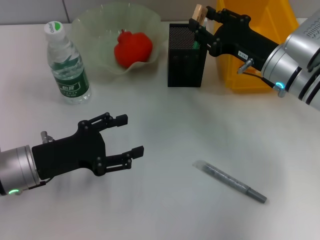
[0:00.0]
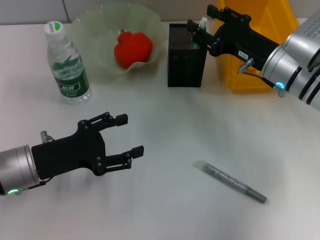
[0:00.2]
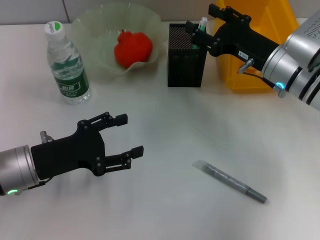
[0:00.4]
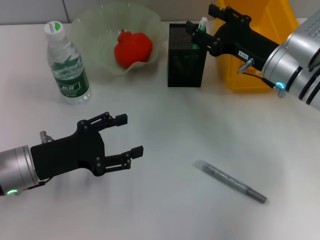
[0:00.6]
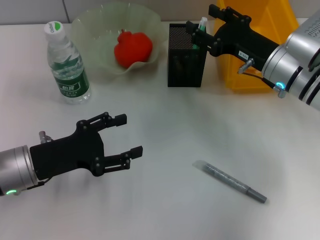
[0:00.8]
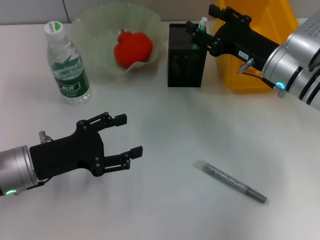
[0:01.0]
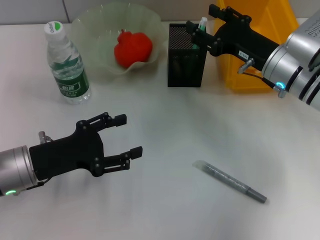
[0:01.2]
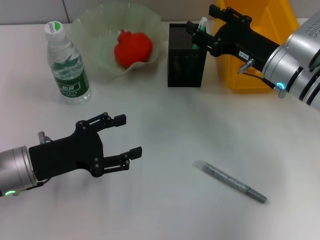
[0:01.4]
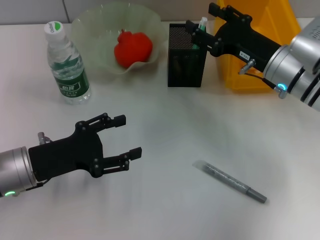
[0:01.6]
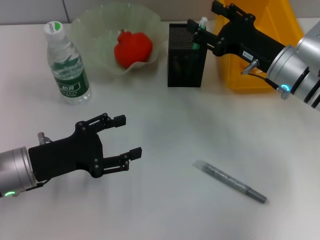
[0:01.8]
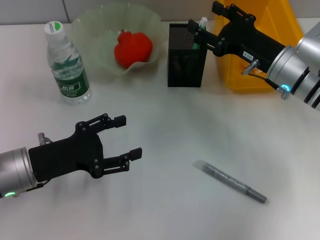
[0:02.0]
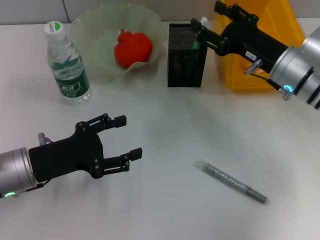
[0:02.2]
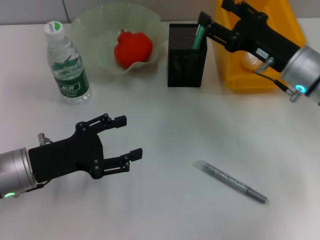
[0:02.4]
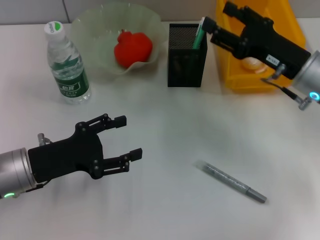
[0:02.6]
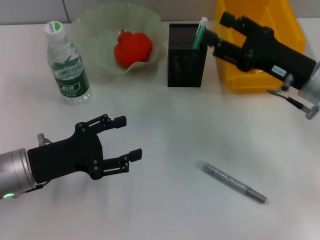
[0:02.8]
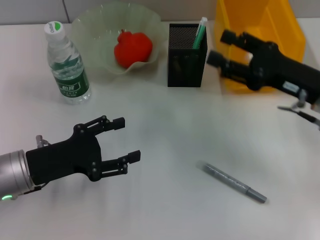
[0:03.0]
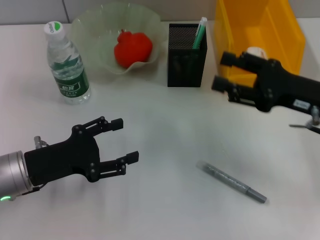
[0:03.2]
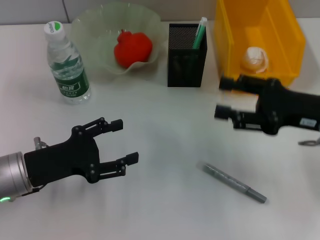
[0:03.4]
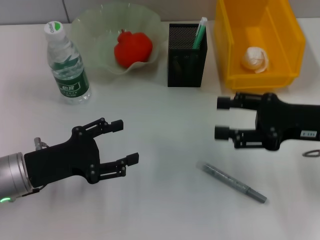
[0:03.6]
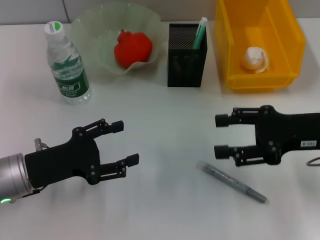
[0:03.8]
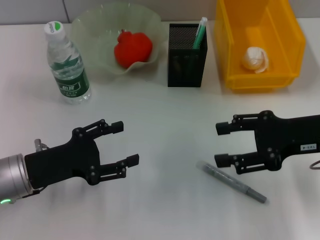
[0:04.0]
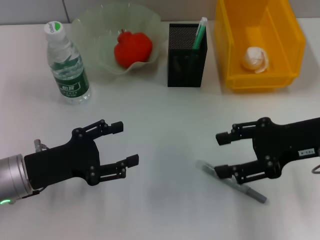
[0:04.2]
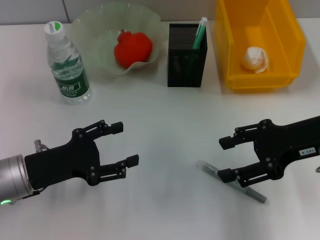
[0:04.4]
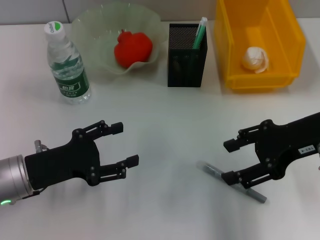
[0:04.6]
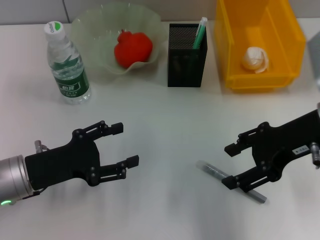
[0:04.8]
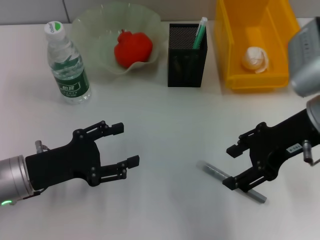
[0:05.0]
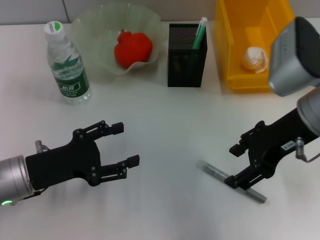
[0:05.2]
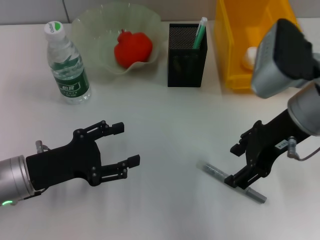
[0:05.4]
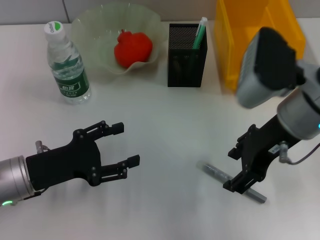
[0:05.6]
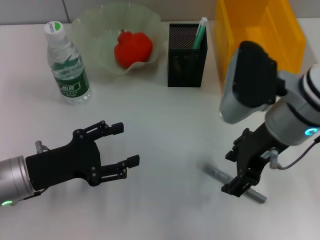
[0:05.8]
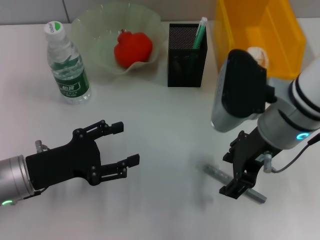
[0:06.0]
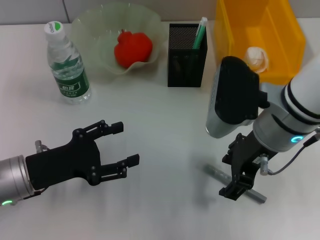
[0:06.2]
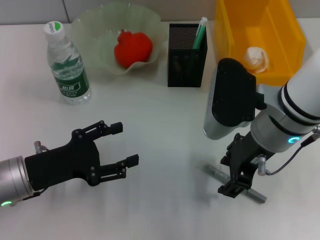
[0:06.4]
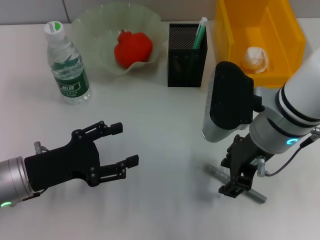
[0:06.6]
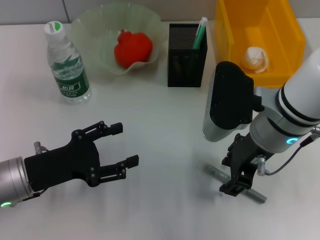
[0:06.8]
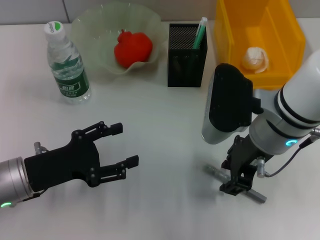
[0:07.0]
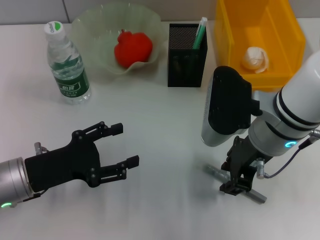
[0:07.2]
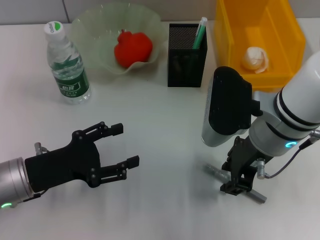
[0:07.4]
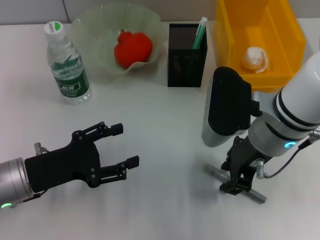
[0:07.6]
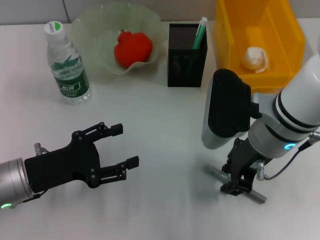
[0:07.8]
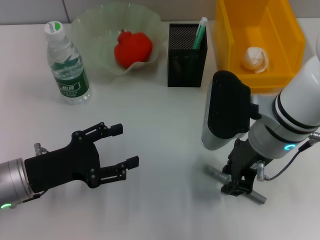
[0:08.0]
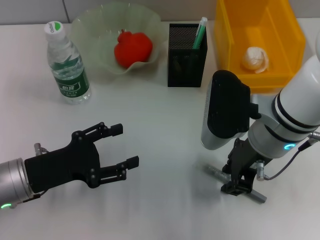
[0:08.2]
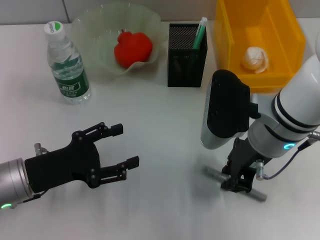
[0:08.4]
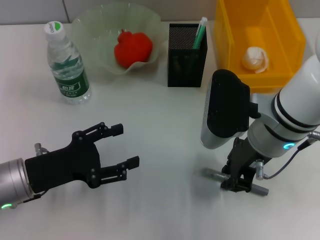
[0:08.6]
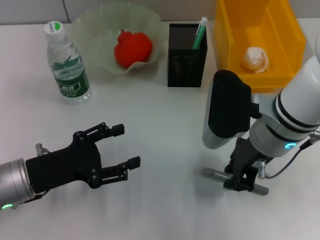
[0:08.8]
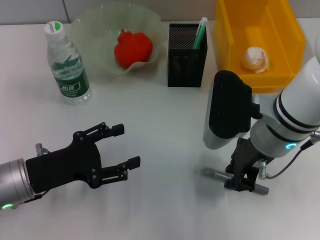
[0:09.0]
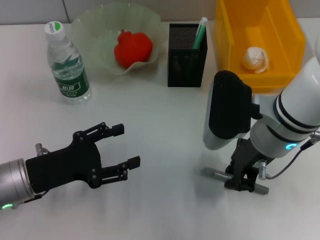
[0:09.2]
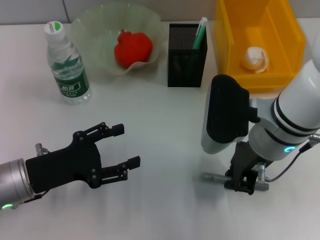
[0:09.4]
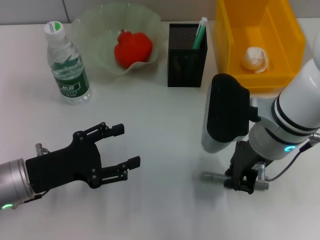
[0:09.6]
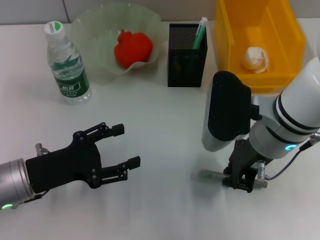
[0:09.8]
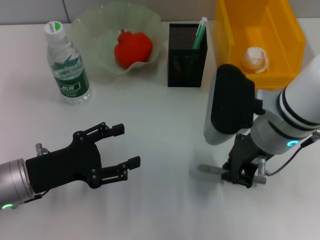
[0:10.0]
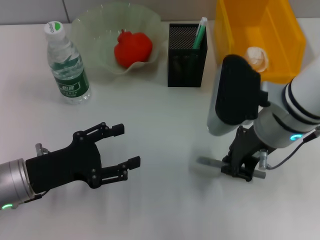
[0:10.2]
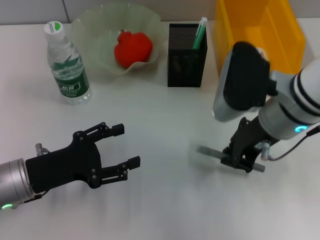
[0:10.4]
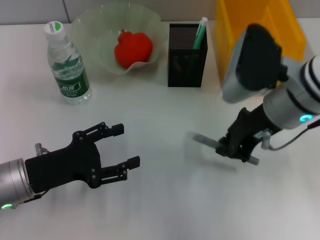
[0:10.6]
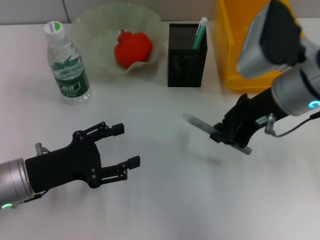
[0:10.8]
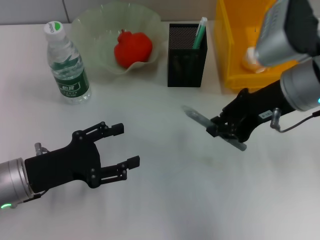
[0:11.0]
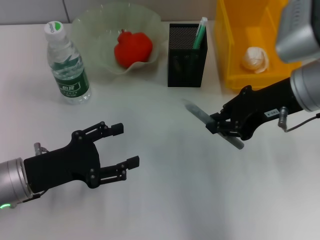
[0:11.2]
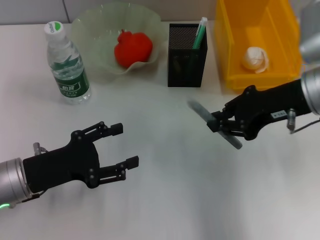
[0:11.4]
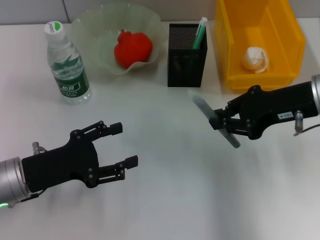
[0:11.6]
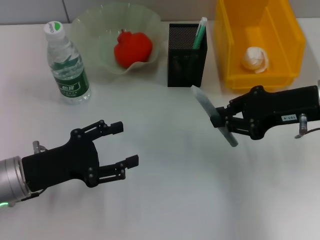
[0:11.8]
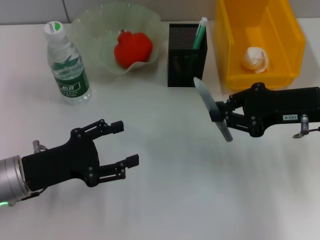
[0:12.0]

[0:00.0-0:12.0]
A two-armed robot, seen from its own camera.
Step, 0:01.2 to 0:10.2: Grab the gray glue with the right hand.
0:00.0 to 0:01.6: The right gripper opens up.
0:01.6 to 0:03.0: The right gripper goes some 10 cm backward and to the right.
0:03.0 to 0:04.4: The right gripper changes place by roughly 5 cm.
0:04.4 to 0:06.0: The right gripper is displaced to the left by roughly 10 cm.
0:06.0 to 0:07.6: The right gripper closes.
0:07.6 to 0:09.0: Both grippers stay put.
0:09.0 to 0:10.4: The grippers stay close to where they were, moving slightly.
0:10.4 to 0:12.0: The right gripper moves to the right, approximately 10 cm.

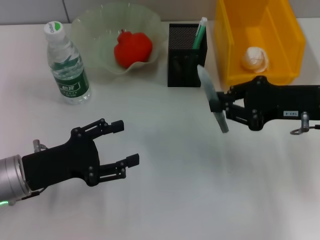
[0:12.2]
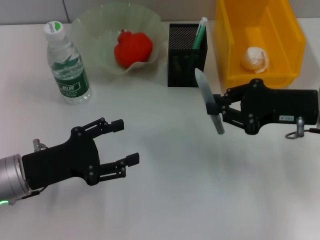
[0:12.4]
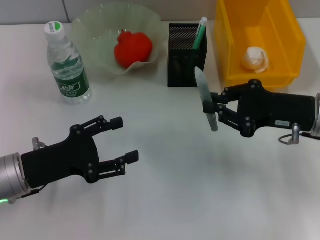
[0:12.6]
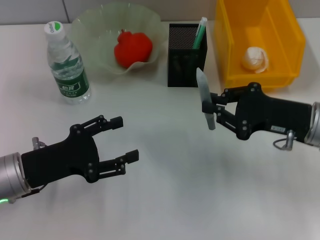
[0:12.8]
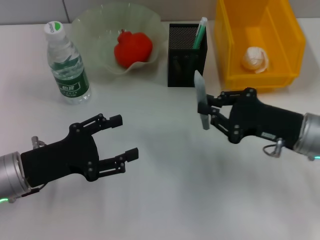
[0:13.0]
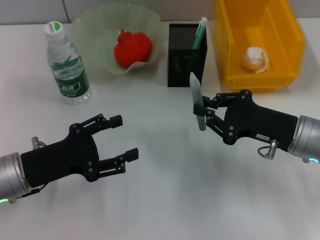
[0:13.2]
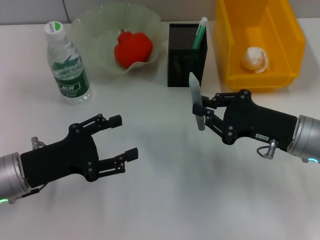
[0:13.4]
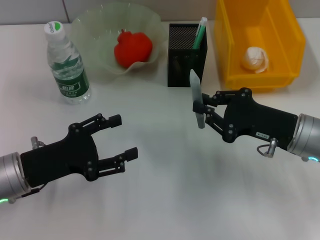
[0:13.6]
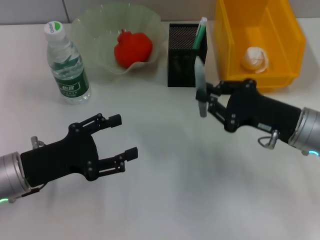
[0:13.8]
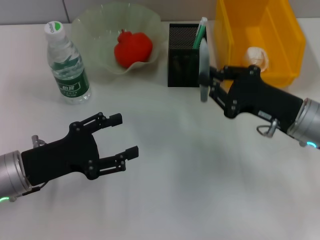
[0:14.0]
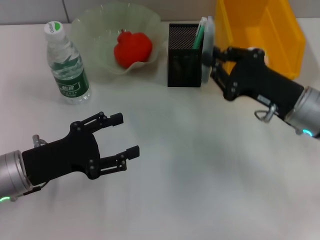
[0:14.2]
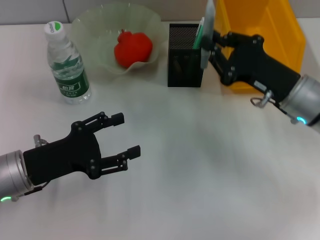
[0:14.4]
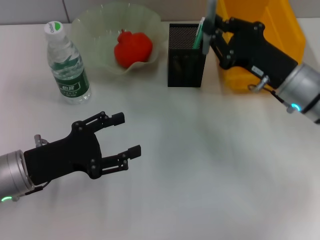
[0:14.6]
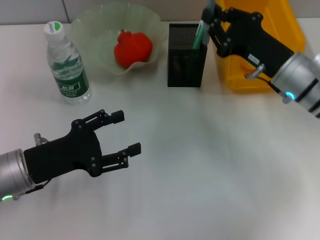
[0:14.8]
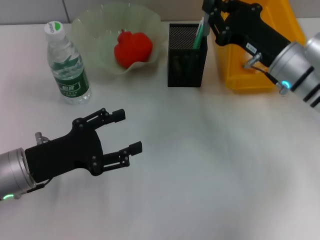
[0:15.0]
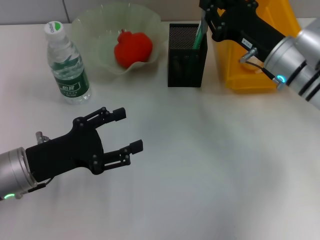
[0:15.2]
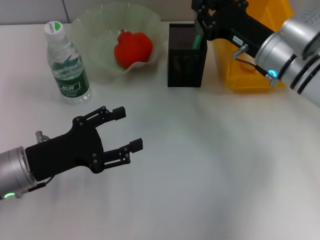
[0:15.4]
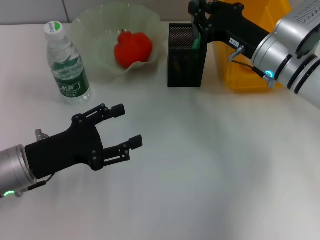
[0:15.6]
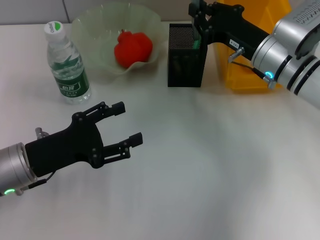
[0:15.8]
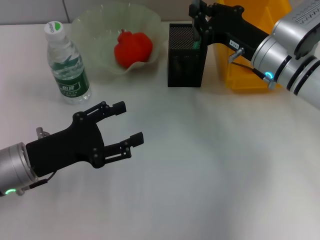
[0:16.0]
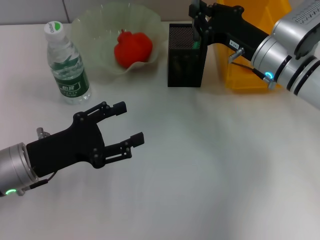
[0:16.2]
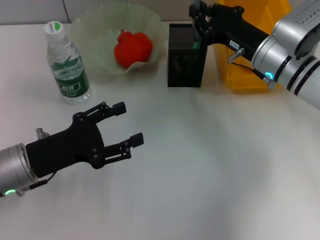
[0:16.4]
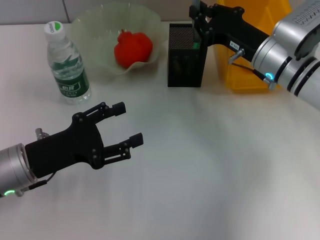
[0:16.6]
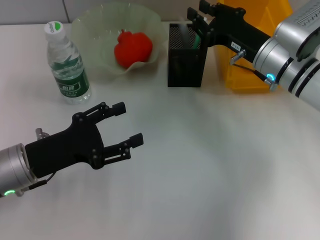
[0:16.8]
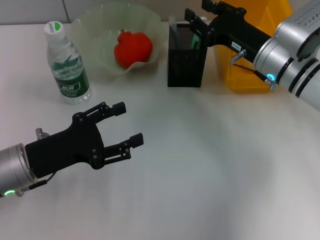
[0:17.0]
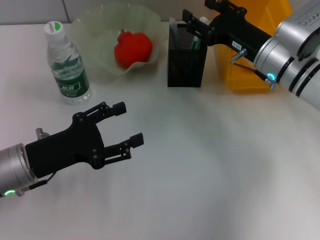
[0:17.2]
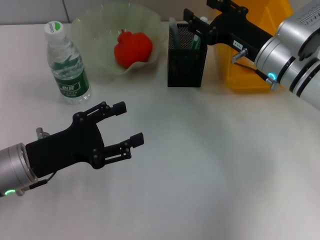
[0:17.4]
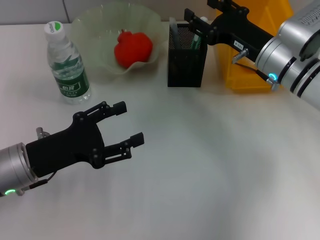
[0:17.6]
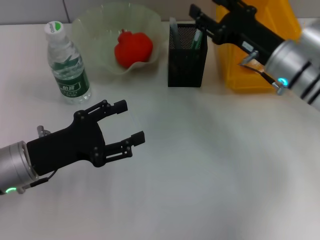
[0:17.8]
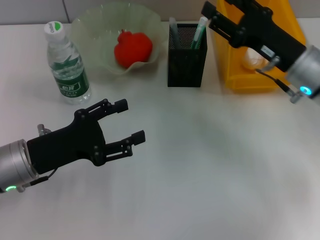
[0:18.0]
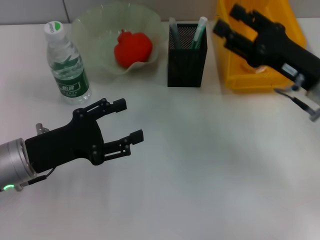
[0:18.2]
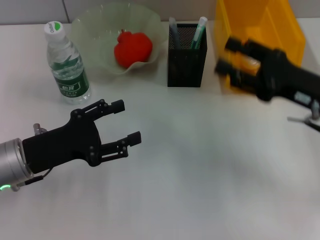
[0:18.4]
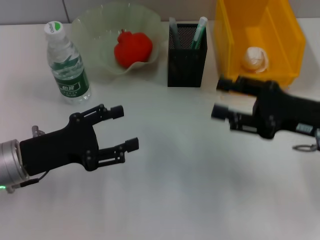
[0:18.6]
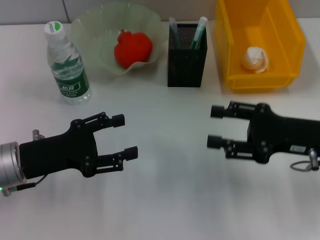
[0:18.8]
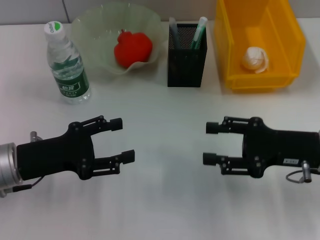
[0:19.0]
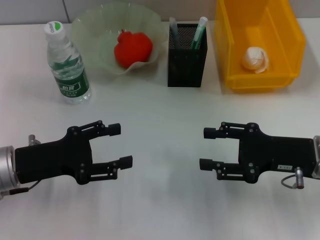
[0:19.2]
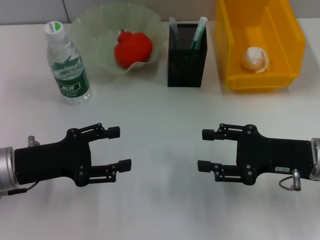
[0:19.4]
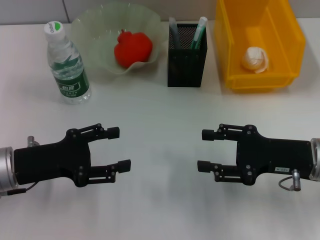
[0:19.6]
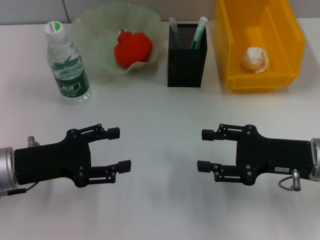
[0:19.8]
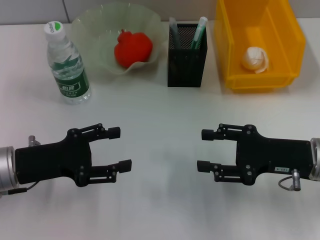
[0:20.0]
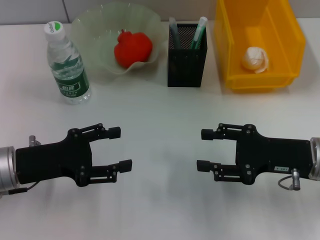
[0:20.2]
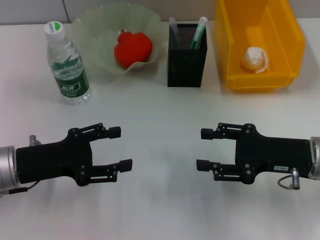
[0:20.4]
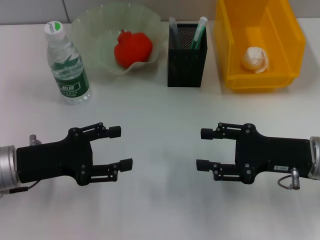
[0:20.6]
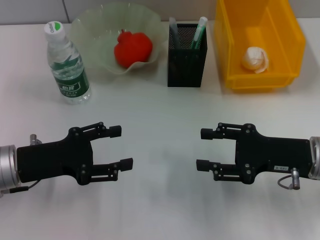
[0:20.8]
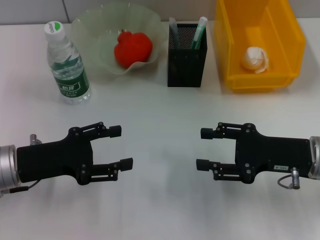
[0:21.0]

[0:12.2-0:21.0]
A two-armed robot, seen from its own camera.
Step, 0:12.2 to 0:17.2: Place the gray glue into the pen holder with the right hand.
0:12.2 to 0:13.6: The right gripper is displaced downward by about 5 cm.
0:13.6 to 0:15.2: The right gripper travels forward by roughly 10 cm.
0:15.2 to 0:16.6: The grippers move only a little.
0:16.6 to 0:18.0: The right gripper ends up some 5 cm from where it was, and opens.
0:18.0 to 0:19.6: The right gripper goes roughly 10 cm backward.
0:19.6 to 0:21.0: Both grippers stay put.

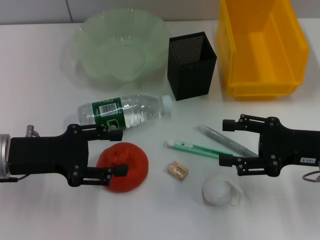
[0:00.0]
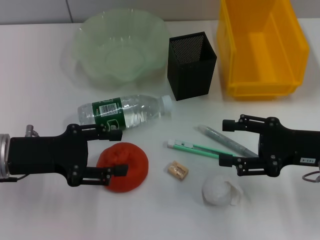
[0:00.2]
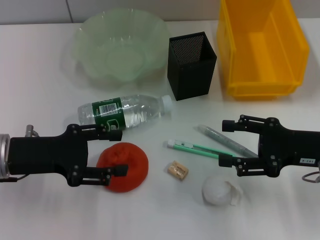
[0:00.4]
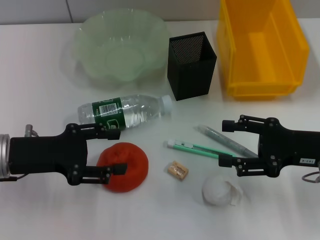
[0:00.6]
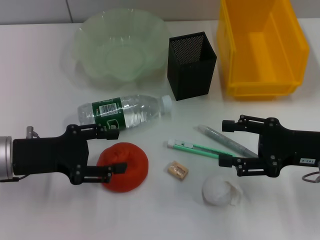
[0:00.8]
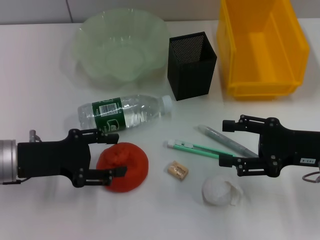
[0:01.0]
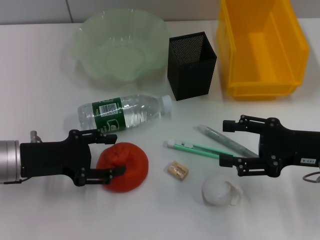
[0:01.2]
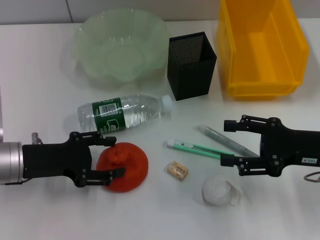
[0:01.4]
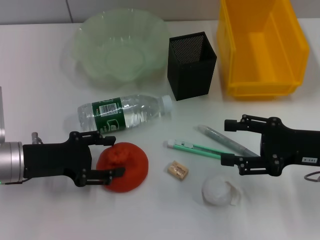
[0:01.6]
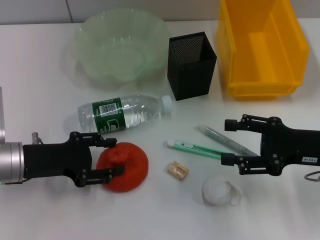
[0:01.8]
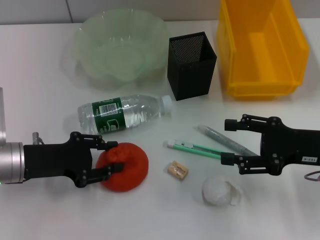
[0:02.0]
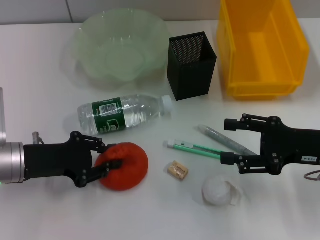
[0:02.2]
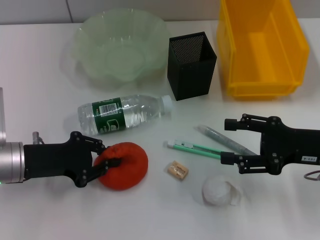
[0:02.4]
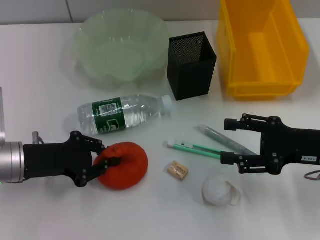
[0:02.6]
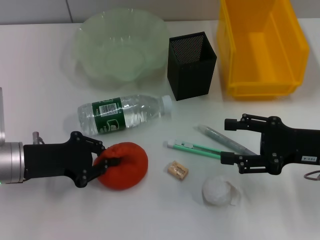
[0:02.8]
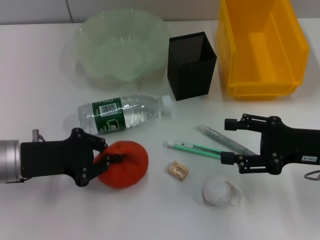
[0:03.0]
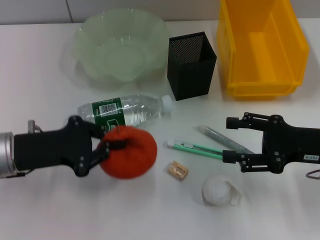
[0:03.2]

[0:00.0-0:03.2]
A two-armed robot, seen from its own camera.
Step, 0:00.0 to 0:02.6: Grab the orange with the left hand.
0:00.0 to 0:01.6: The grippers move only a little.
0:01.6 to 0:03.2: The left gripper closes up.
